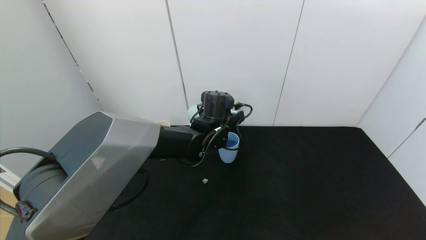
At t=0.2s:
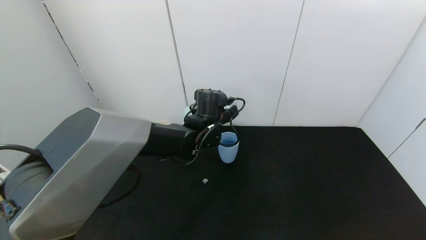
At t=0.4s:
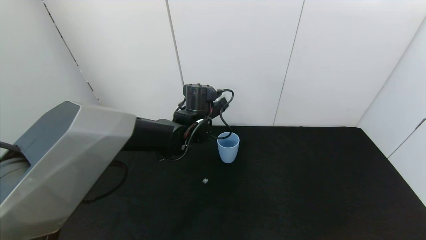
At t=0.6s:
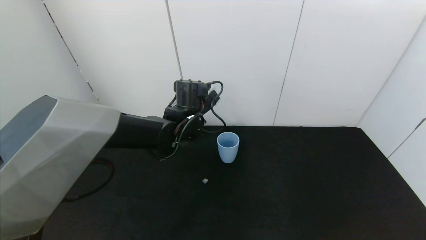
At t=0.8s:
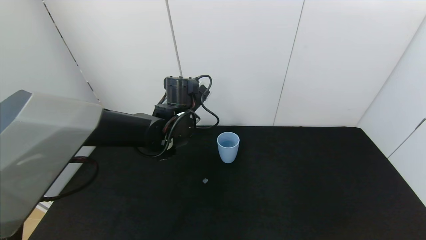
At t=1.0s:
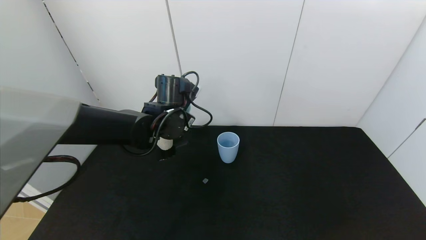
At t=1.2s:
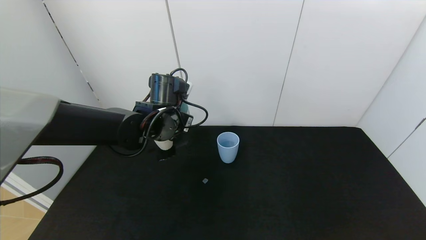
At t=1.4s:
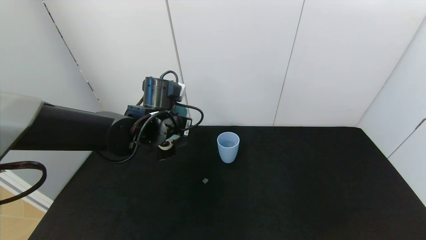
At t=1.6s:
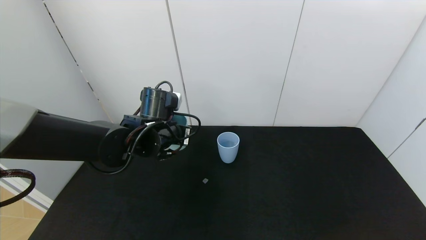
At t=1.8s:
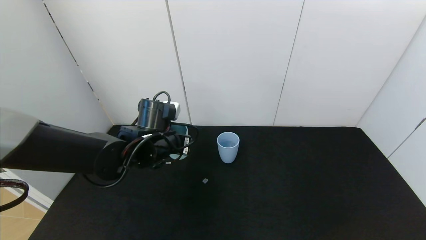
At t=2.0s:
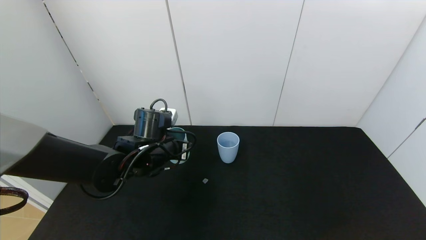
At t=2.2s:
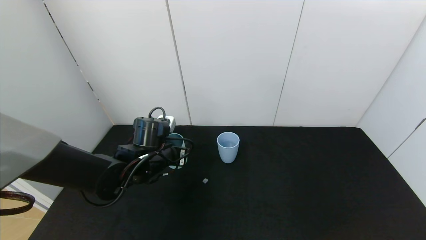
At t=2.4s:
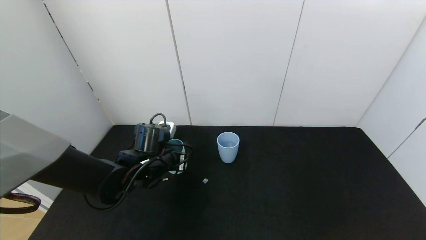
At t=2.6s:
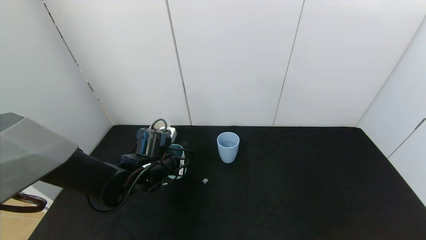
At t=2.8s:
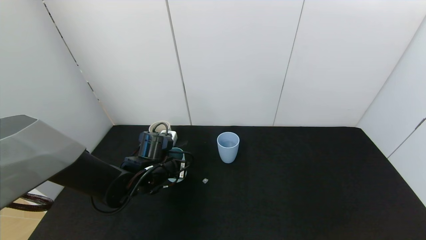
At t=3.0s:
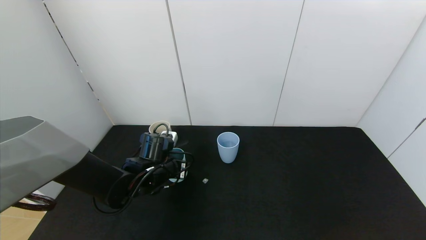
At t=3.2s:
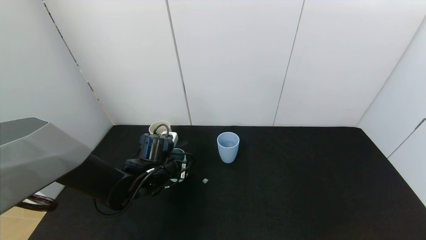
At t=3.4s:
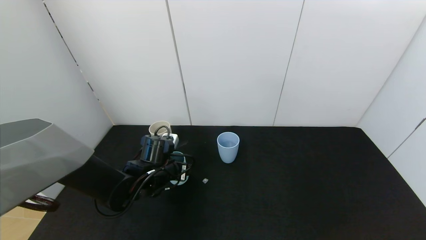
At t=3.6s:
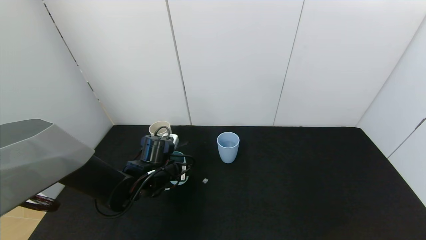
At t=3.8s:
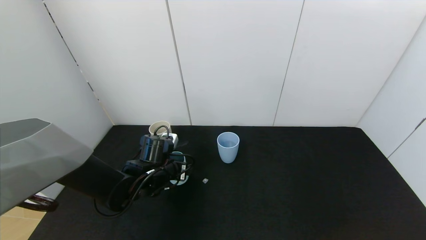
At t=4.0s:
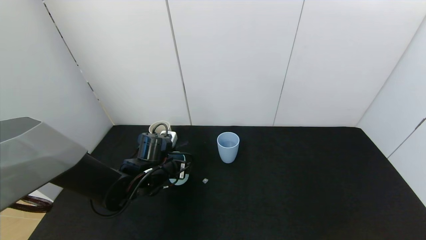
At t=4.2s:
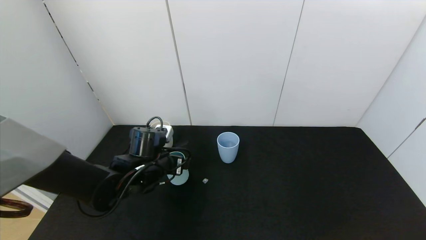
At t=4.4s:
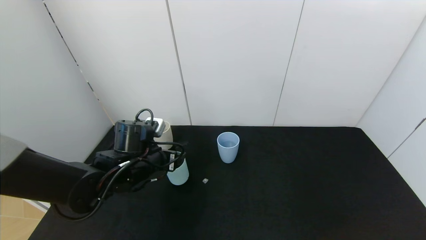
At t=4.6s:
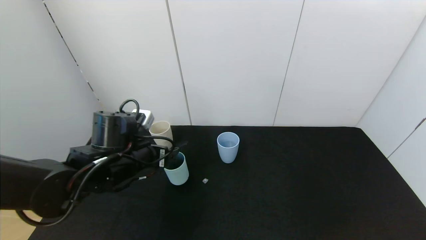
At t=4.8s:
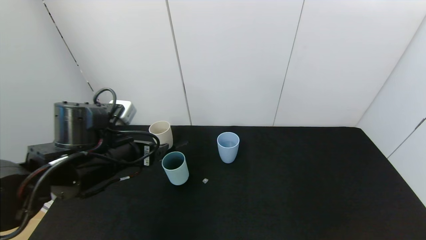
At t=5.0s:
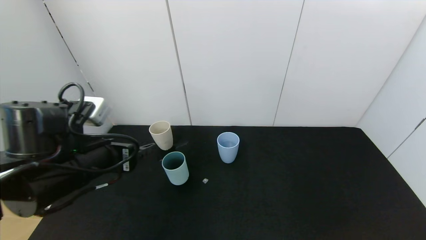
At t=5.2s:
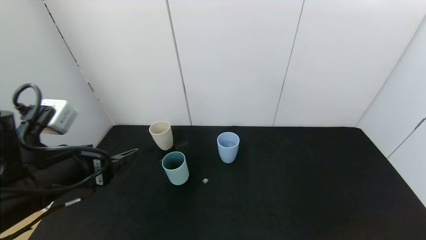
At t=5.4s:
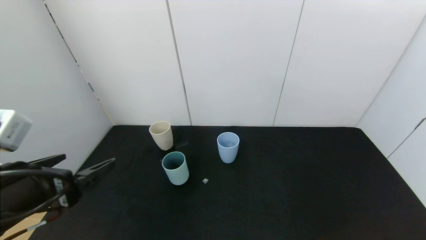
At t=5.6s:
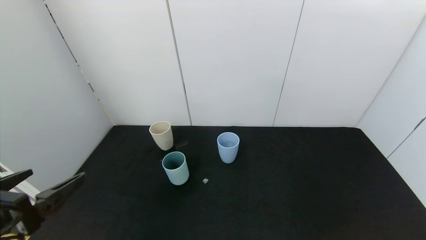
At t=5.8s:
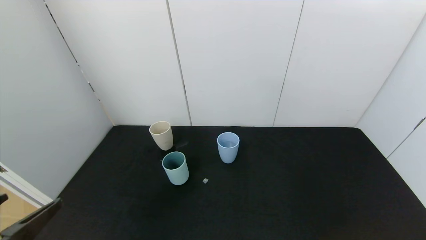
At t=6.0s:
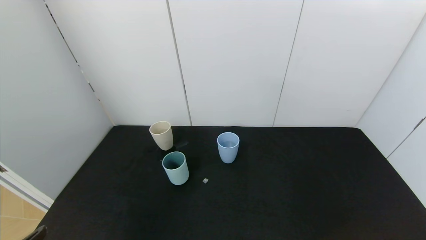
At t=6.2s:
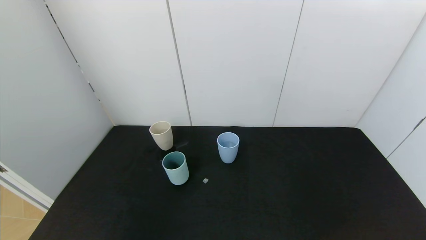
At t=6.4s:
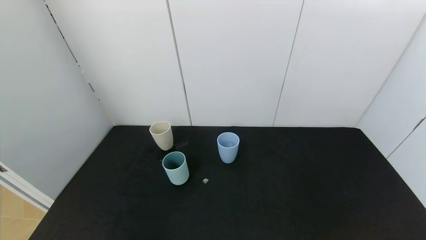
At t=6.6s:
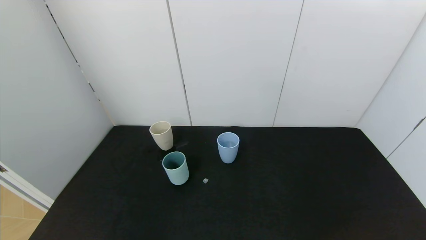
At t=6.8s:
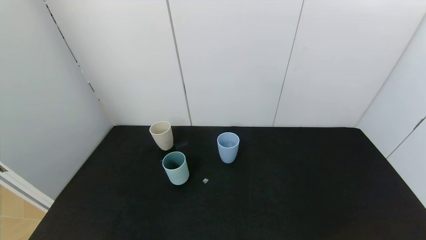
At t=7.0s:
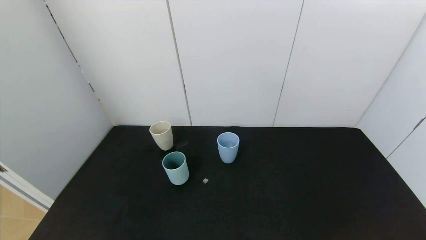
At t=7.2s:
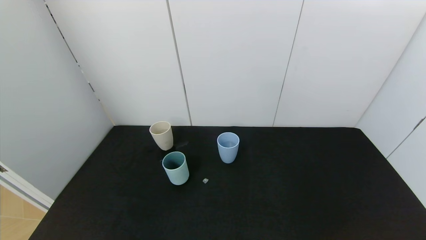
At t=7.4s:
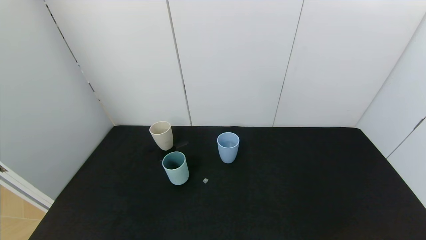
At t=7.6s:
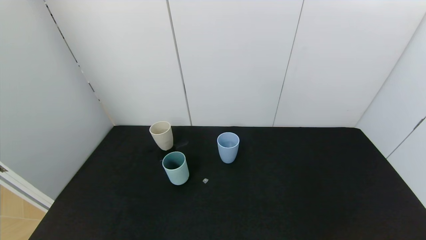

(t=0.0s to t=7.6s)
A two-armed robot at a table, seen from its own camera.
Task of the whole recording: use the gripper to pour the water into the other two cups on black table.
Step, t=0.4s - t=4.8s: Place the green cup with the left gripper.
t=0.0s - t=1.6s: The left gripper travels to the left and backward by approximately 15 cm.
t=1.6s - t=3.0s: The left gripper shifts about 10 cm downward.
t=3.0s - t=4.6s: The left gripper travels upward by roughly 10 cm, and opens its fingers.
t=4.6s - t=6.0s: The left gripper moves backward and to the left, about 30 cm.
